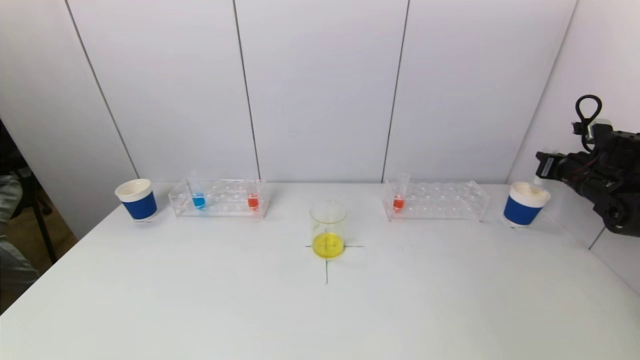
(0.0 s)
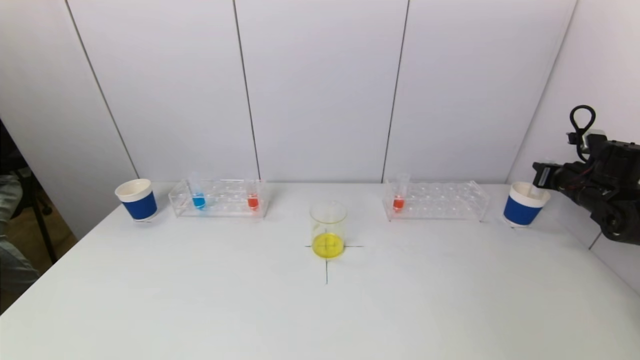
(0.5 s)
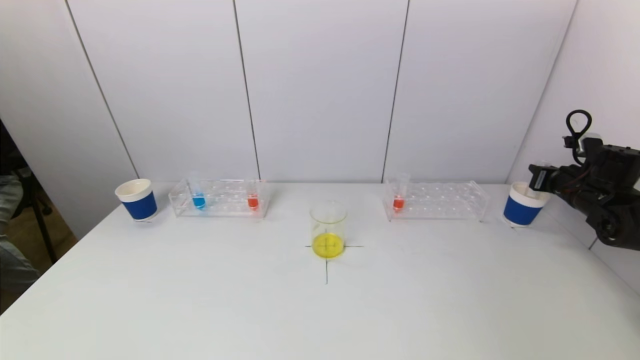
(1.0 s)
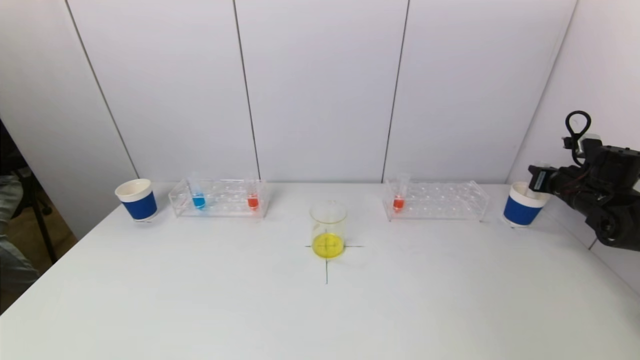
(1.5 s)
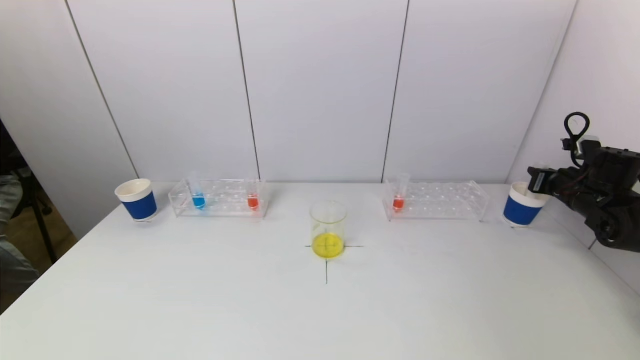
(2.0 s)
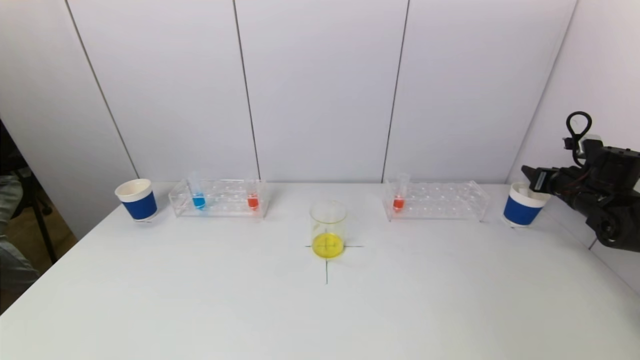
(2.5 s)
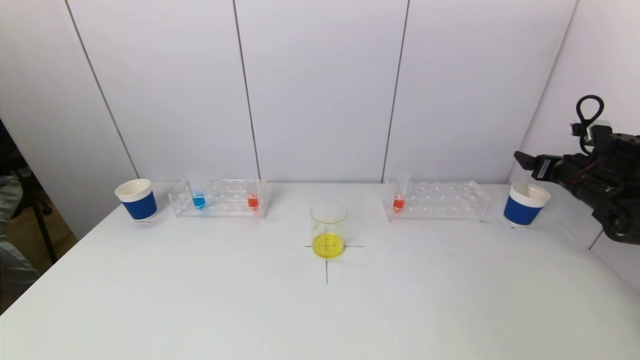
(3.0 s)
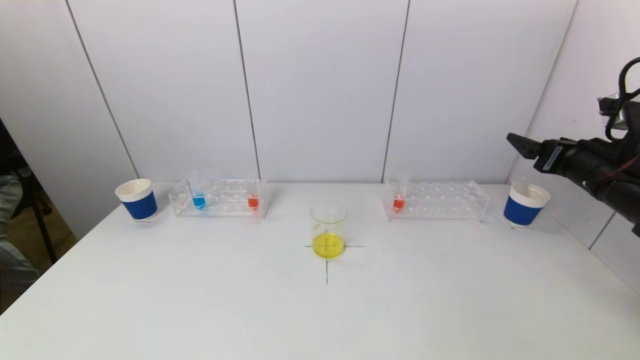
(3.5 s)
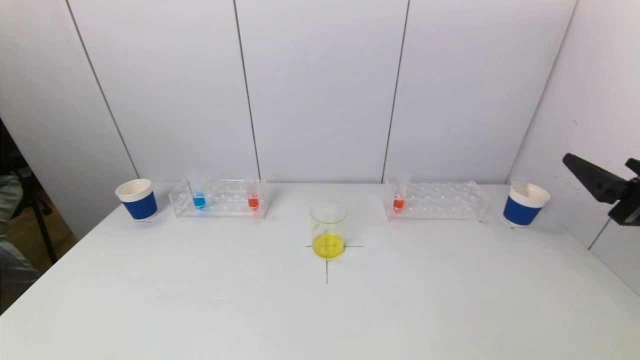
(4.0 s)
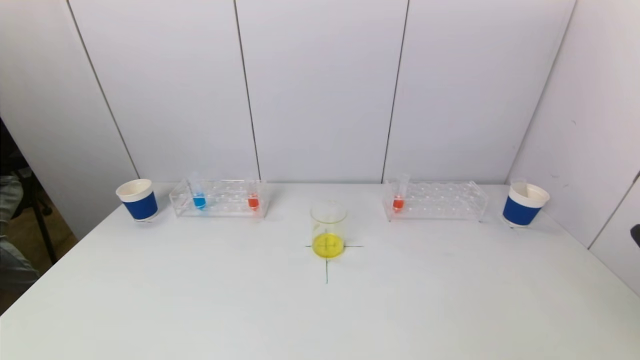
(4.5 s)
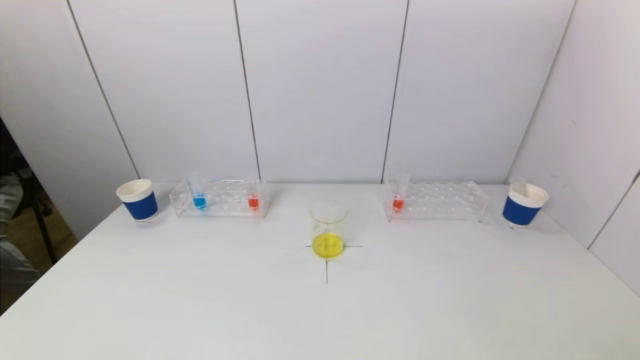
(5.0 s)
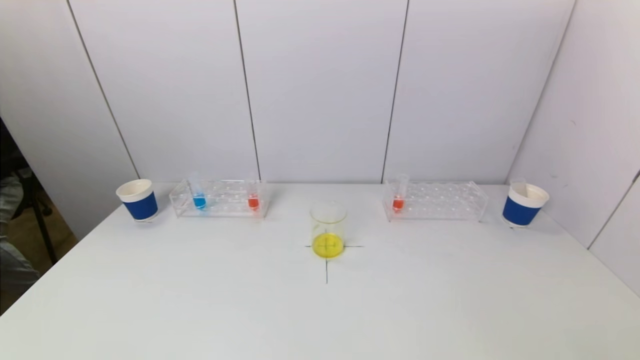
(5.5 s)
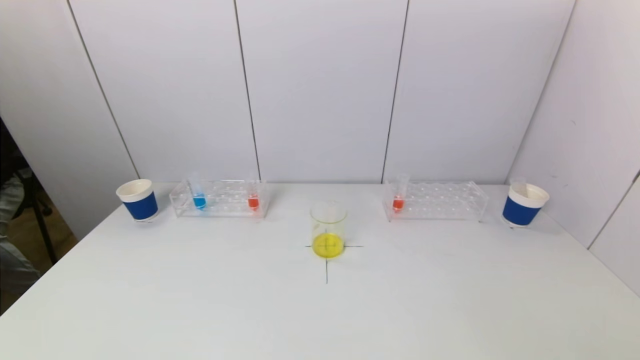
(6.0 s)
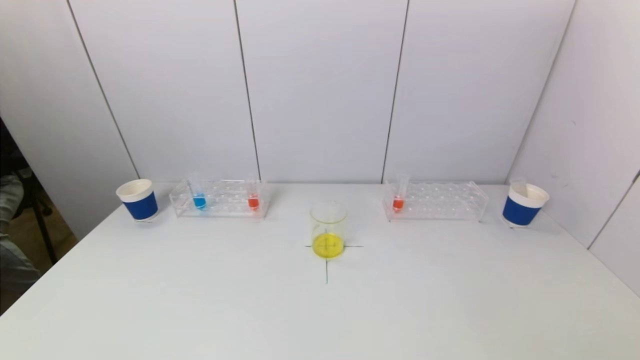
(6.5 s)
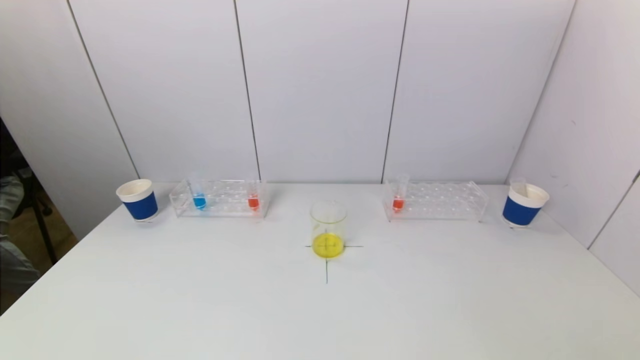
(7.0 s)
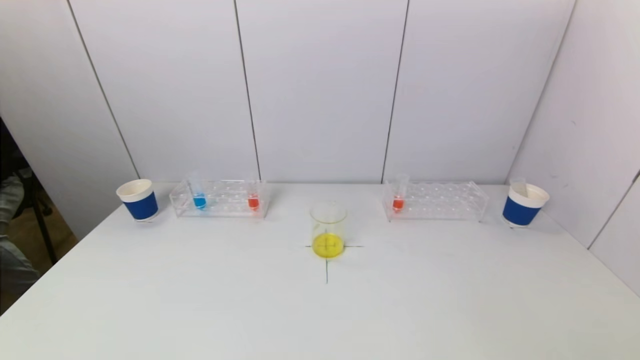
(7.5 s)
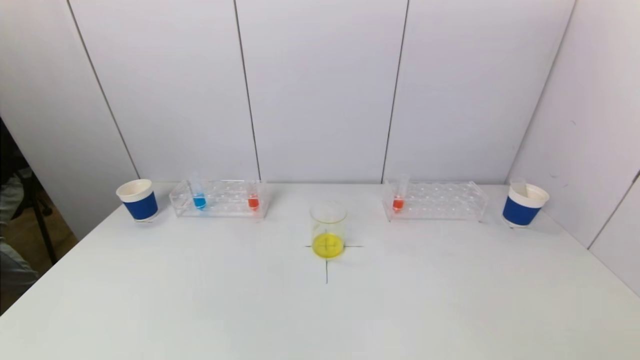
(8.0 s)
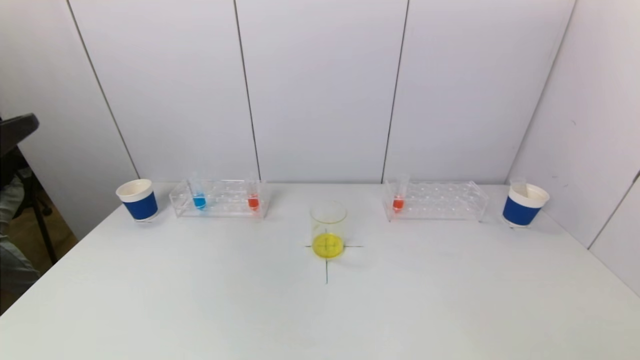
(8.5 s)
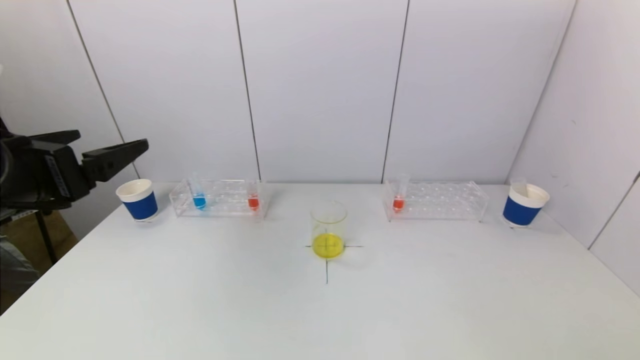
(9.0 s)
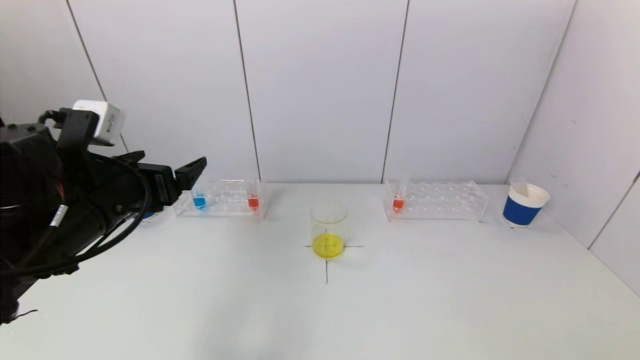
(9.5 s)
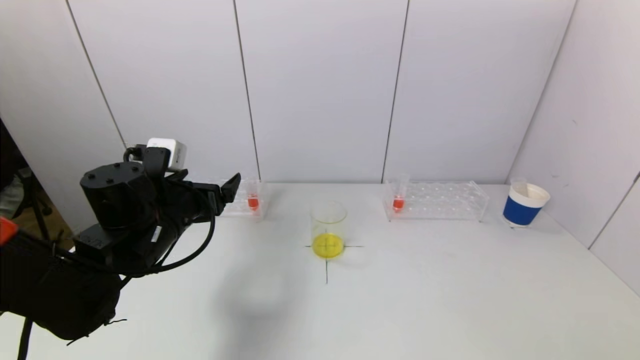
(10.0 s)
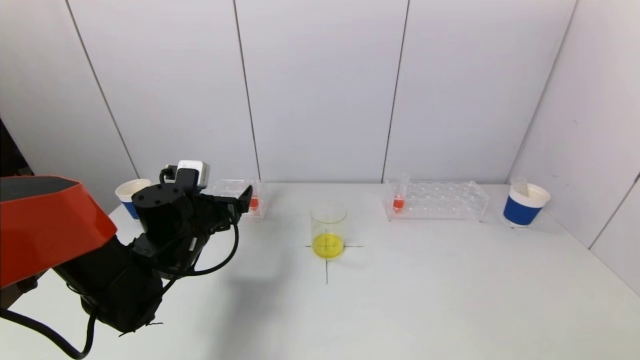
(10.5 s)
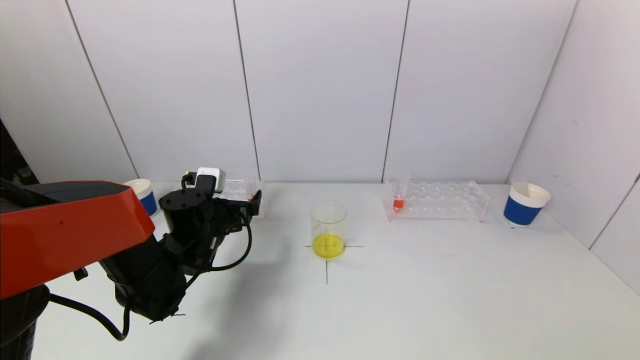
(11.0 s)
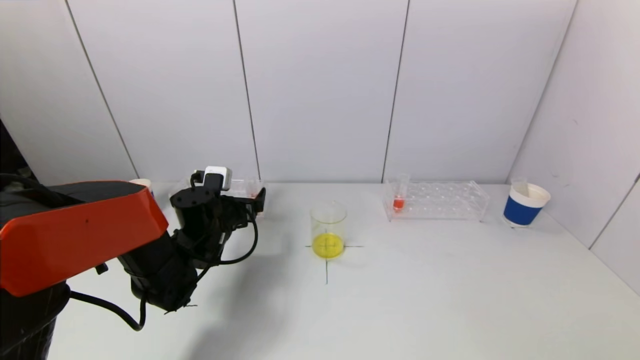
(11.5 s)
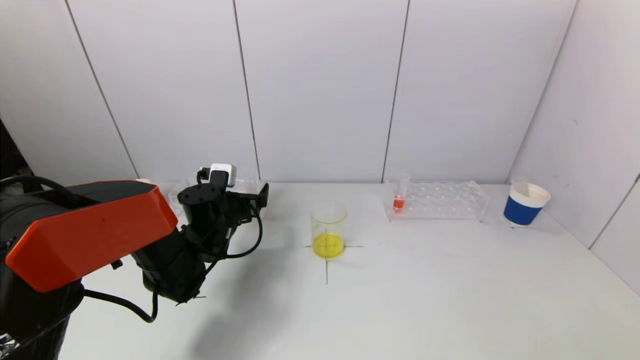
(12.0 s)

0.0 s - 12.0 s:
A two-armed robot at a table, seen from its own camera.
Task of the whole recording: pick up a test tube with pigment on left test tube rack and a test tube with pigment on right test tube rack by grippers and pour them into the beaker.
Step, 0.0 s - 3.0 s: Place the test tube into the paper cup with the right gripper.
0.0 s - 2.0 s: The grippers stay close to where they were, moving slightly.
2.0 s - 4.0 s: The right gripper travels backward, to the left and upward by about 30 cm, and opens.
4.0 s - 6.0 s: The right gripper goes approximately 25 cm backward and downward.
8.0 s - 10.0 s: The left gripper moves forward, some 30 cm.
10.0 s - 12.0 s: The left gripper shifts about 15 cm forward and downward.

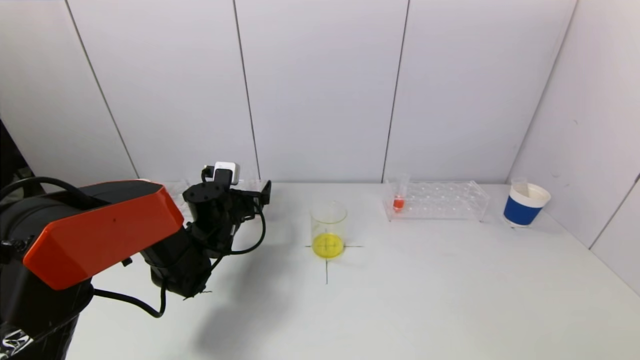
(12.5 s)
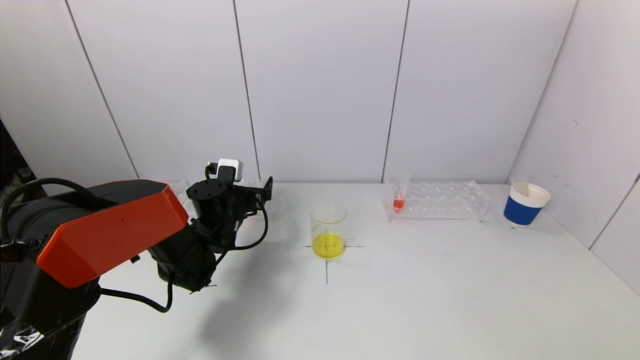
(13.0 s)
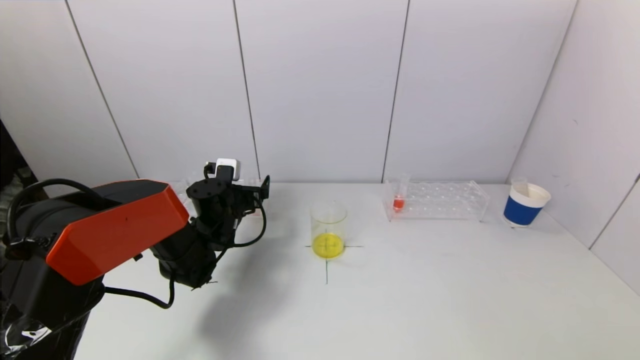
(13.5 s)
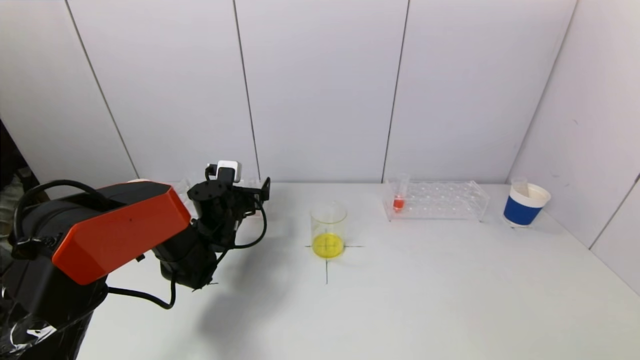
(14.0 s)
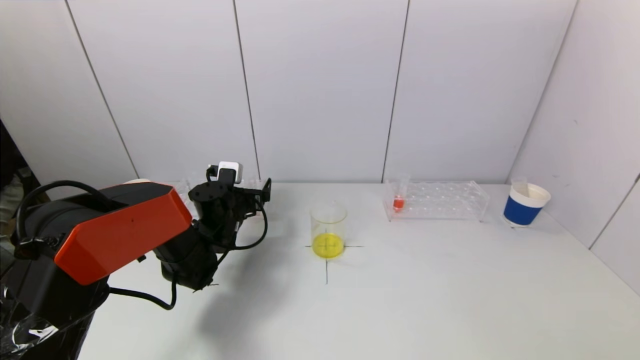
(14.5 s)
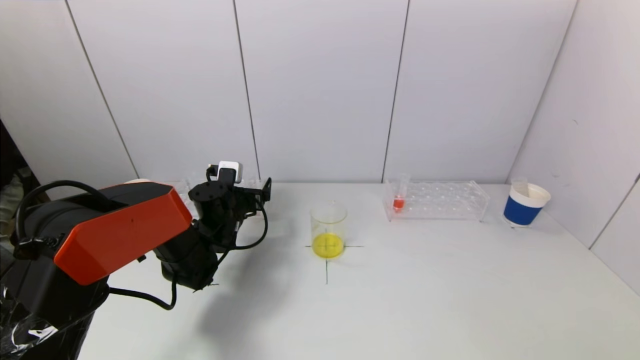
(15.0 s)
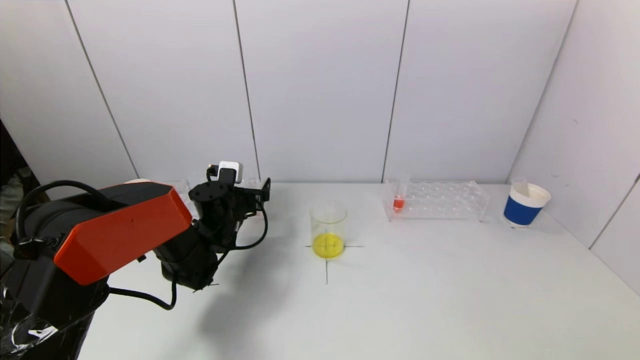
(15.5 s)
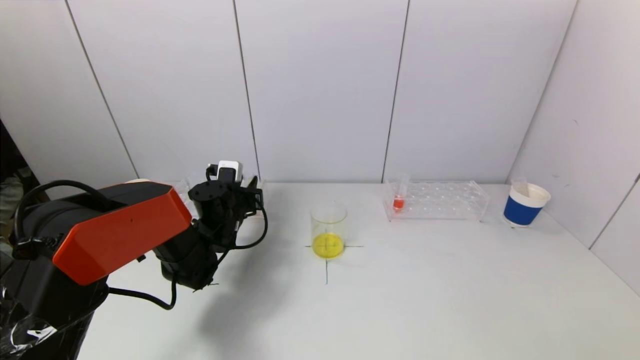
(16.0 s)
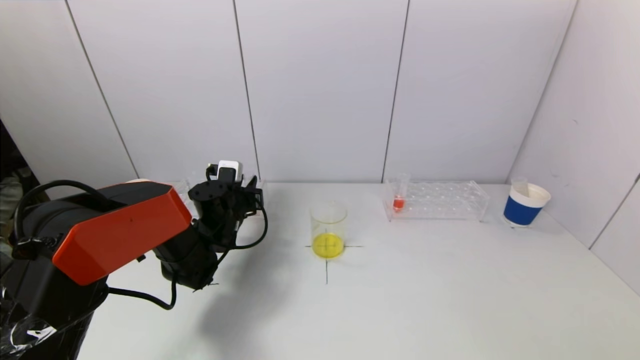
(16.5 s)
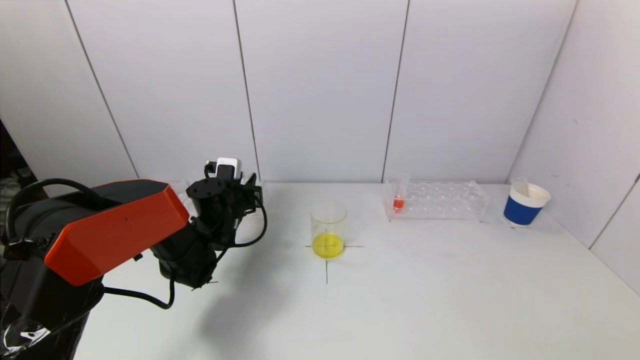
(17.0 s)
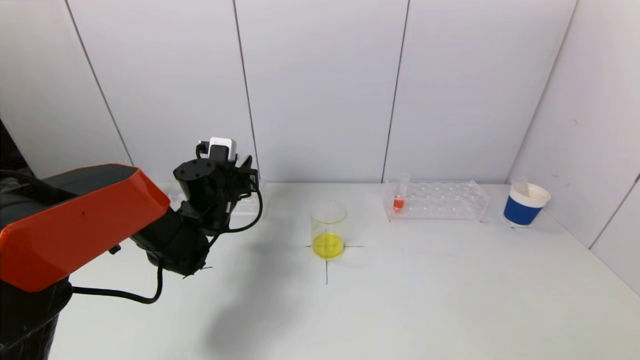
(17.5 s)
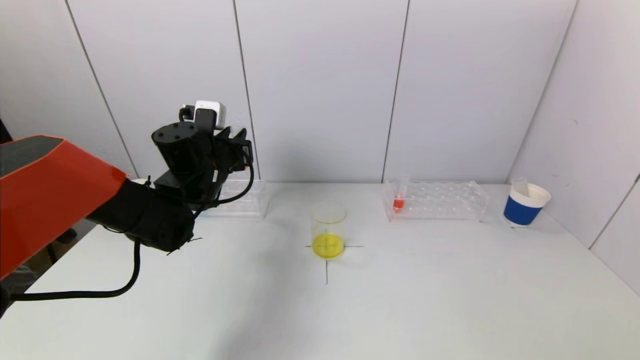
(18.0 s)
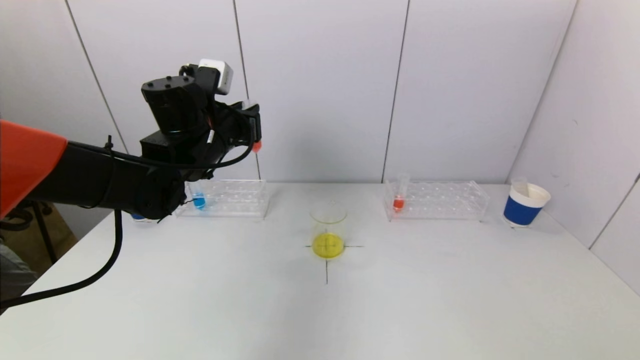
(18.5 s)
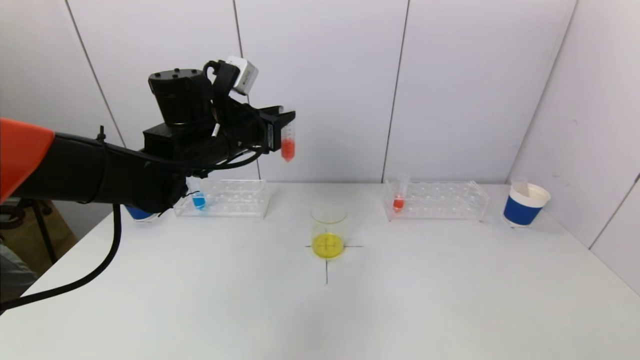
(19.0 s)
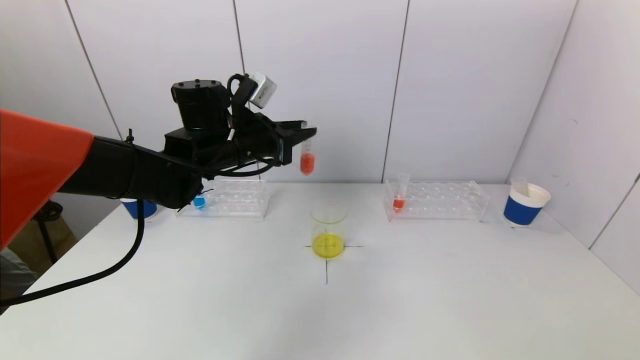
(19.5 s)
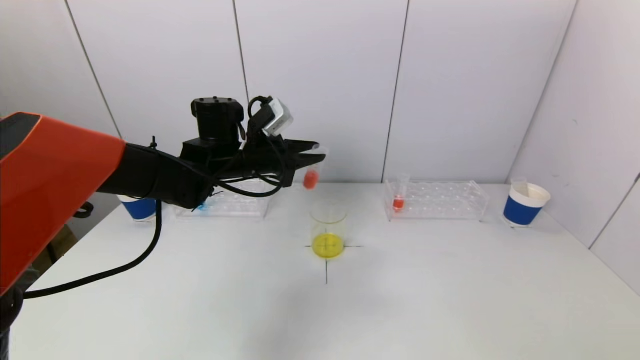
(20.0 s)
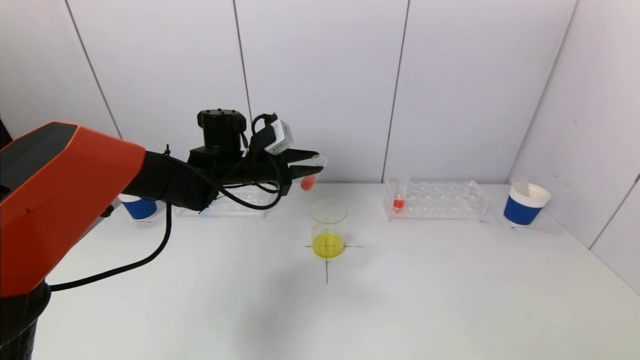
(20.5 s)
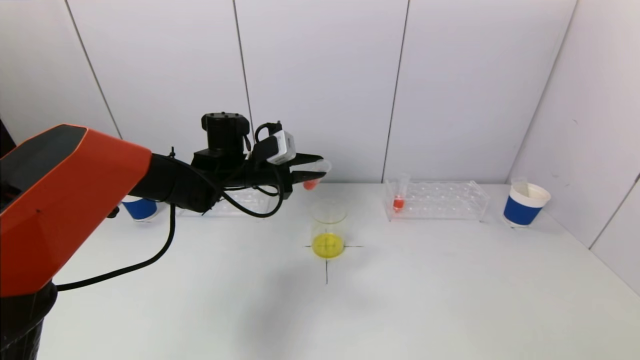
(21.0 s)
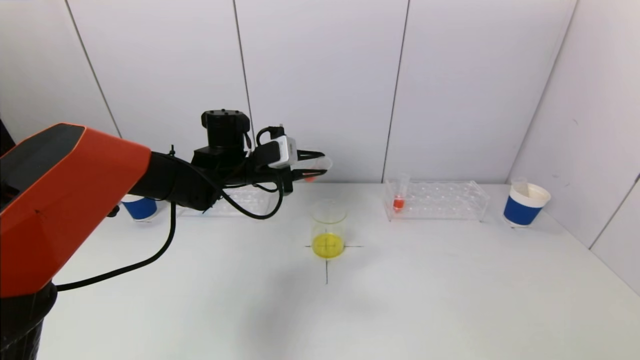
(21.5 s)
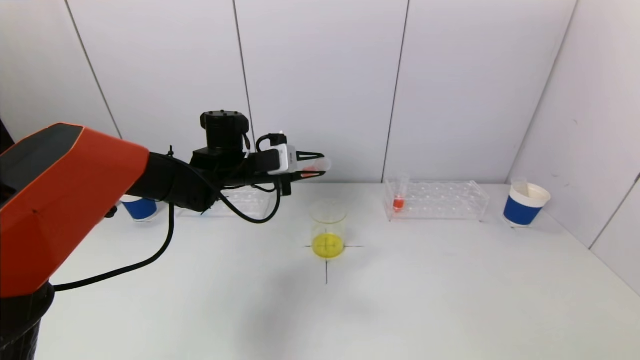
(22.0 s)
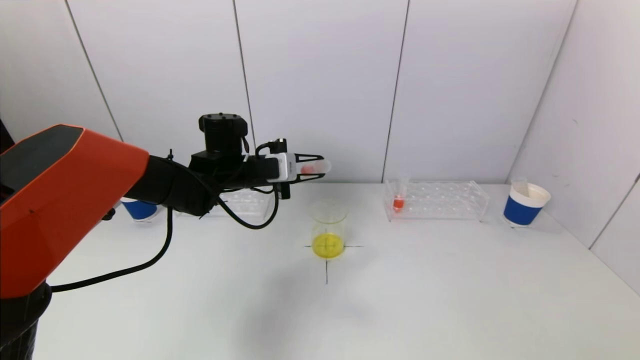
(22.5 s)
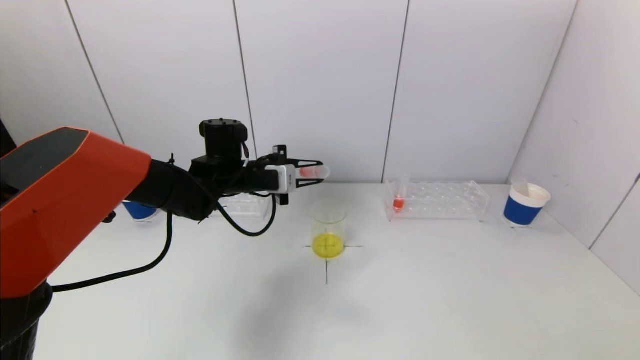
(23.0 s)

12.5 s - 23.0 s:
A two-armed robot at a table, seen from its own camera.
Task of the whole recording: pick up a test tube with pigment on left test tube rack and a test tube with pigment on right test tube rack by grippers and pour them into the beaker.
Step, 12.5 s - 16.0 s: Grasp the red reagent with the left gripper.
12.5 s - 14.5 s: The grippers make only small movements.
14.5 s - 16.5 s: The left gripper closes up.
16.5 s - 19.0 s: The left gripper travels upward by approximately 20 cm.
19.0 s - 21.0 s: The left gripper goes approximately 10 cm downward and forward.
